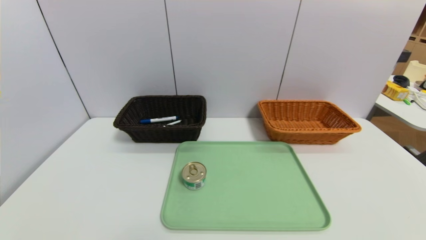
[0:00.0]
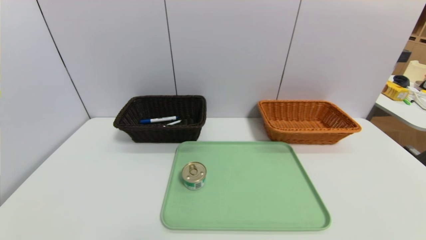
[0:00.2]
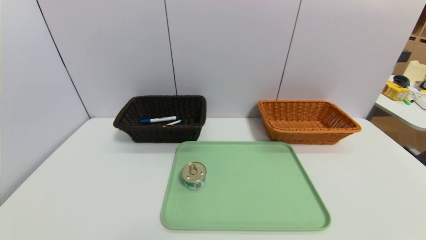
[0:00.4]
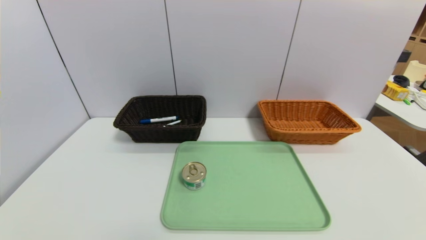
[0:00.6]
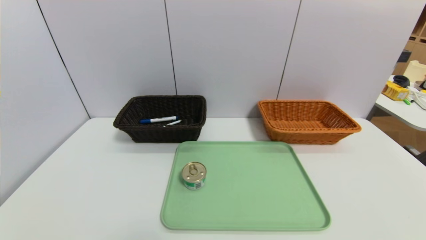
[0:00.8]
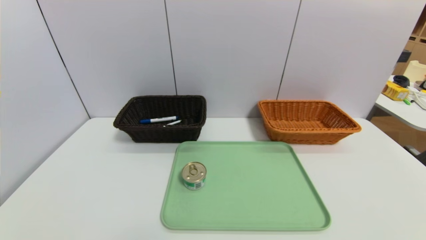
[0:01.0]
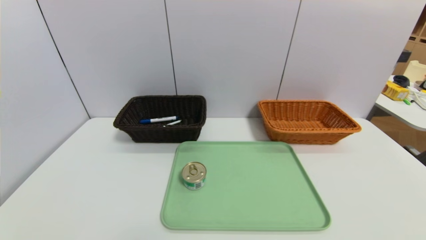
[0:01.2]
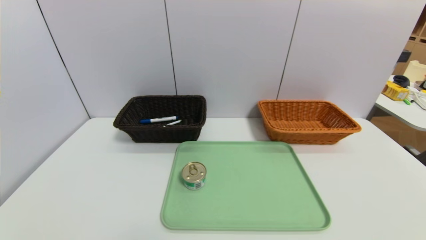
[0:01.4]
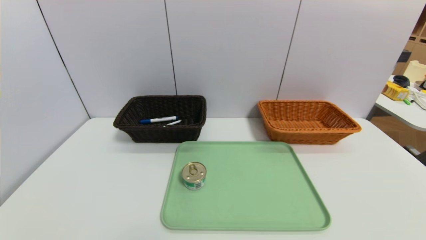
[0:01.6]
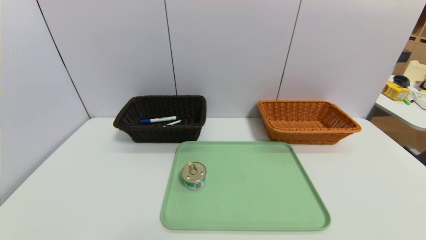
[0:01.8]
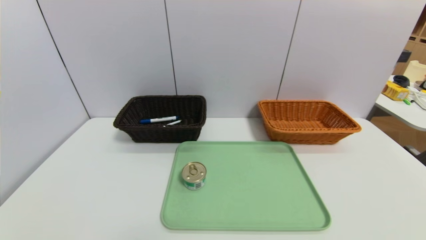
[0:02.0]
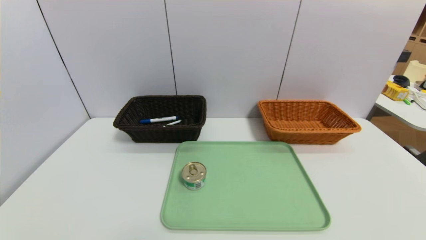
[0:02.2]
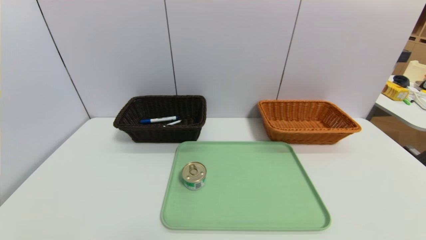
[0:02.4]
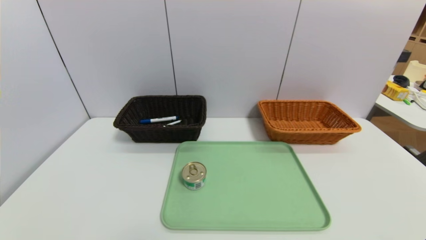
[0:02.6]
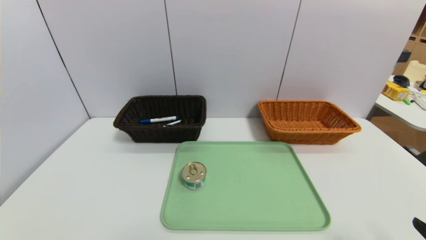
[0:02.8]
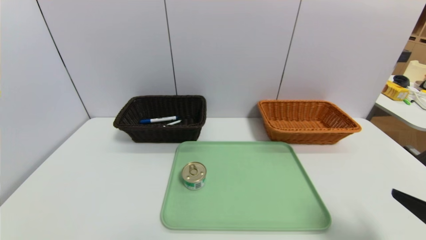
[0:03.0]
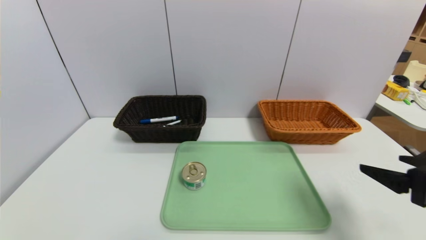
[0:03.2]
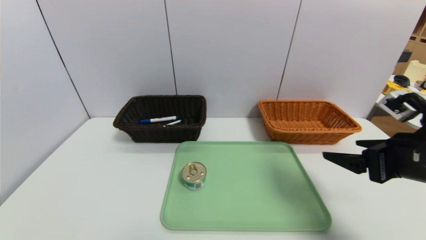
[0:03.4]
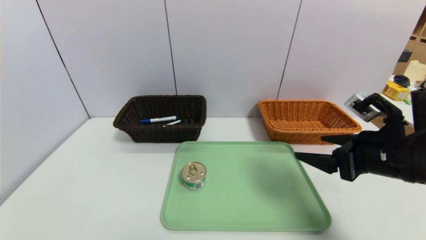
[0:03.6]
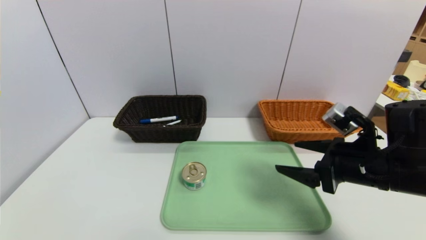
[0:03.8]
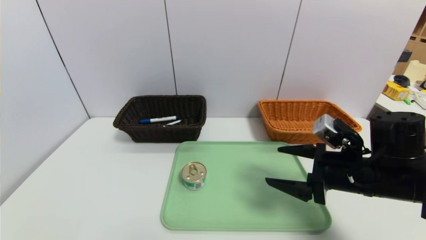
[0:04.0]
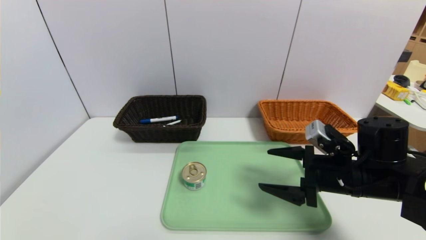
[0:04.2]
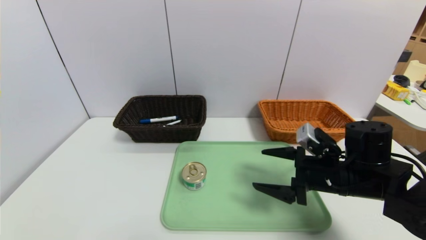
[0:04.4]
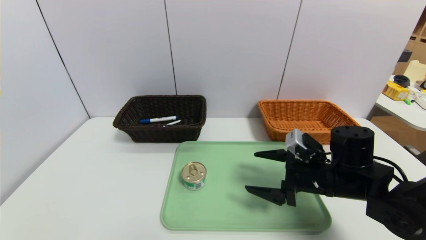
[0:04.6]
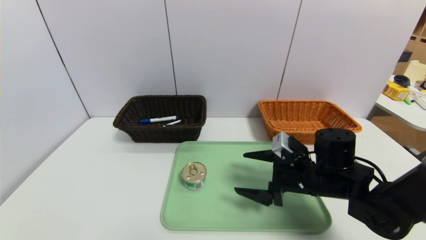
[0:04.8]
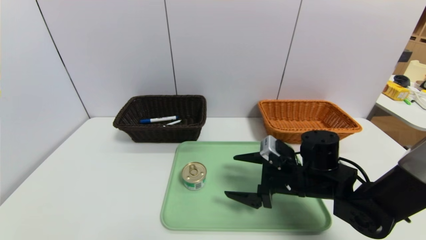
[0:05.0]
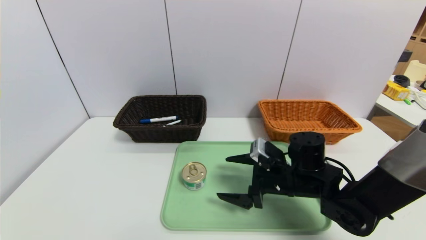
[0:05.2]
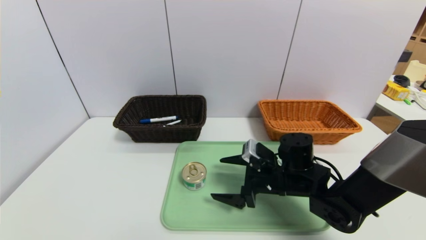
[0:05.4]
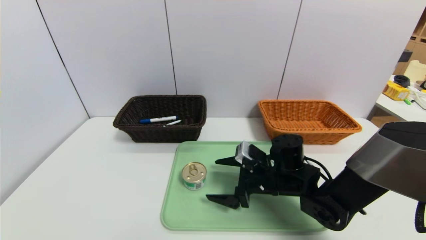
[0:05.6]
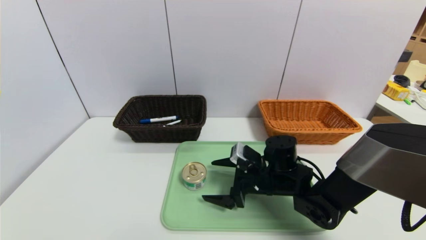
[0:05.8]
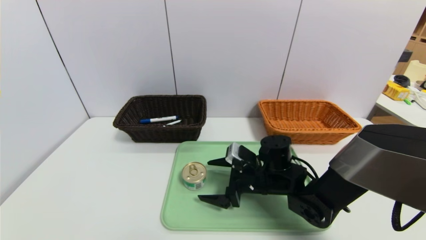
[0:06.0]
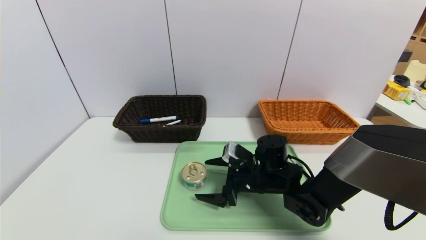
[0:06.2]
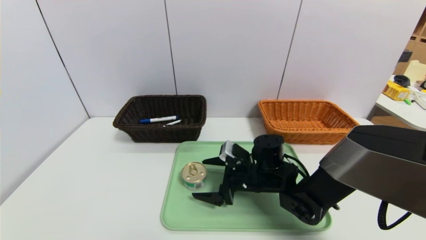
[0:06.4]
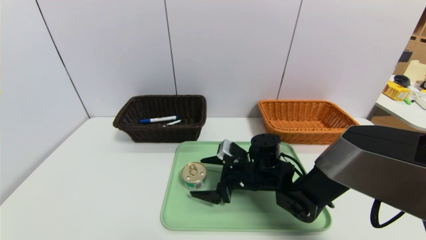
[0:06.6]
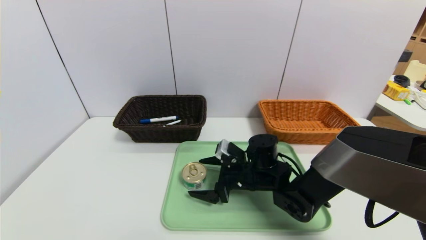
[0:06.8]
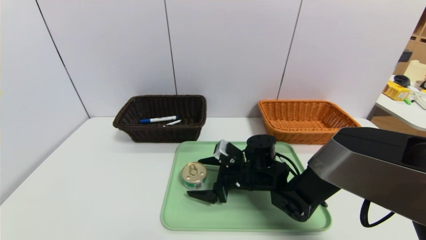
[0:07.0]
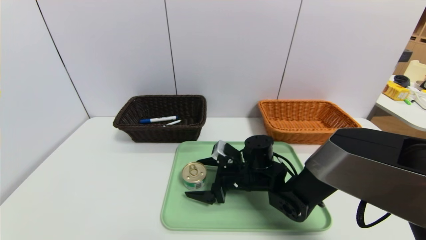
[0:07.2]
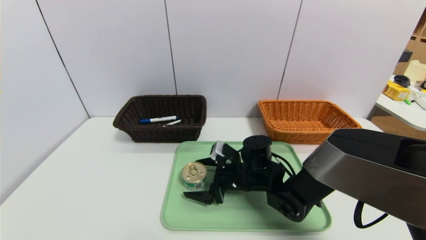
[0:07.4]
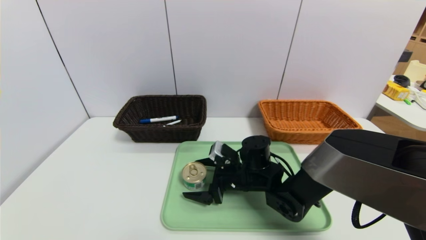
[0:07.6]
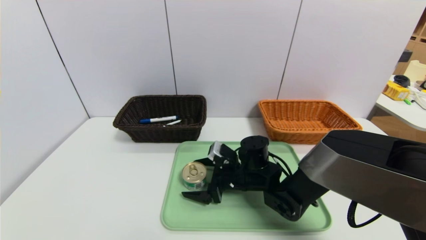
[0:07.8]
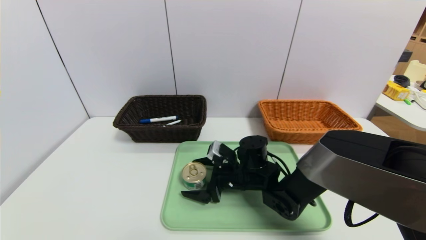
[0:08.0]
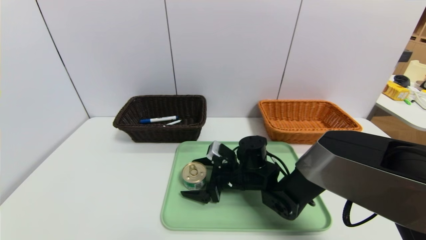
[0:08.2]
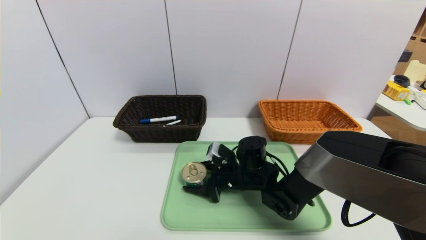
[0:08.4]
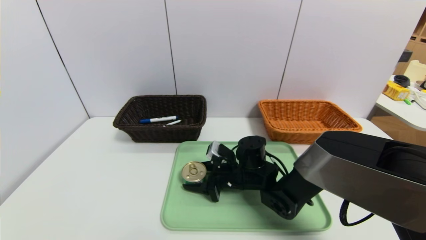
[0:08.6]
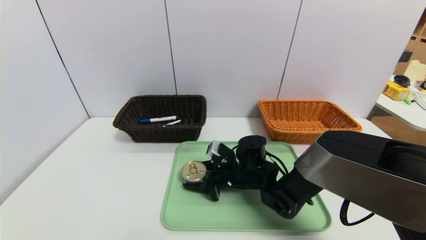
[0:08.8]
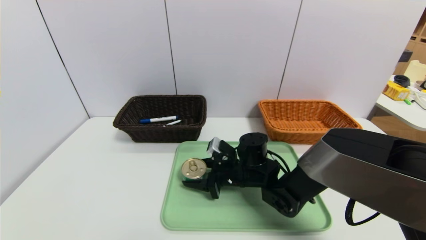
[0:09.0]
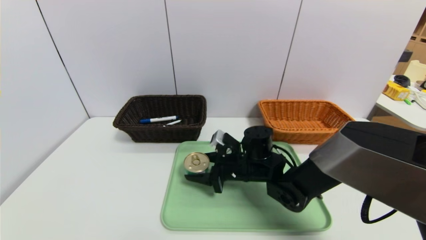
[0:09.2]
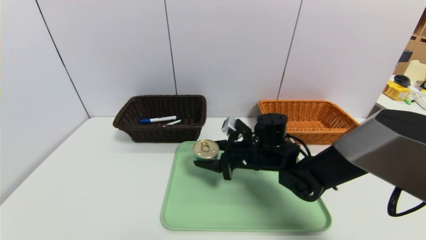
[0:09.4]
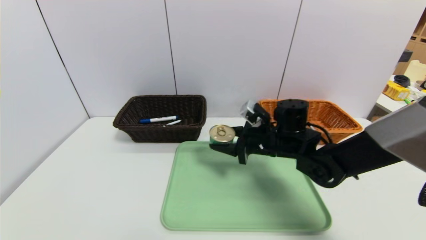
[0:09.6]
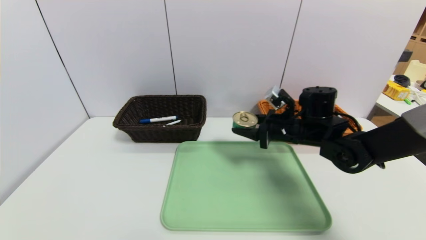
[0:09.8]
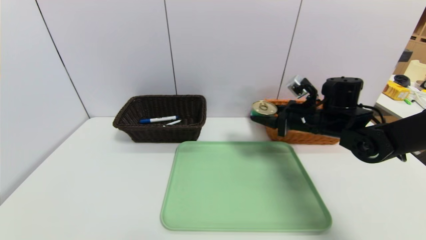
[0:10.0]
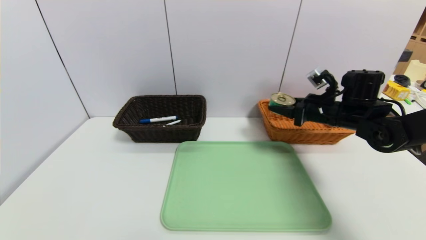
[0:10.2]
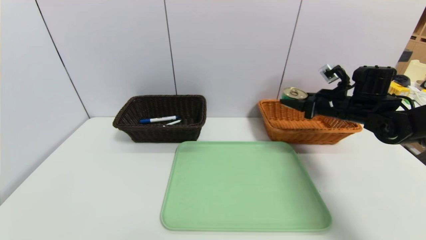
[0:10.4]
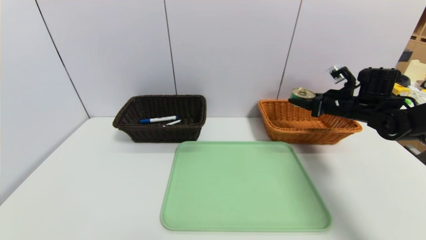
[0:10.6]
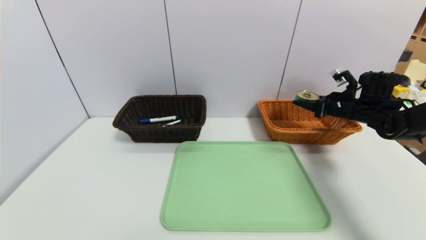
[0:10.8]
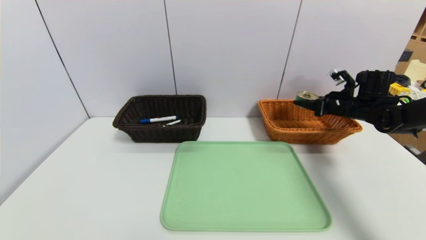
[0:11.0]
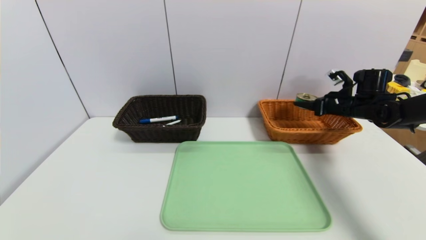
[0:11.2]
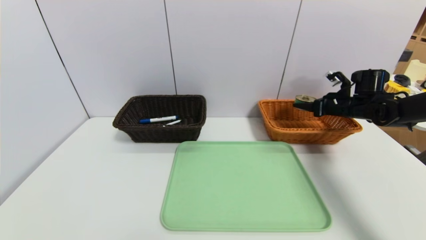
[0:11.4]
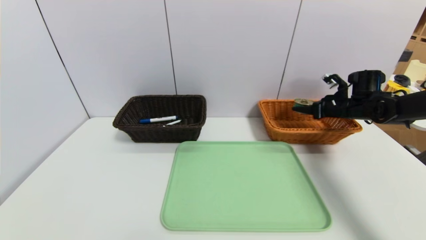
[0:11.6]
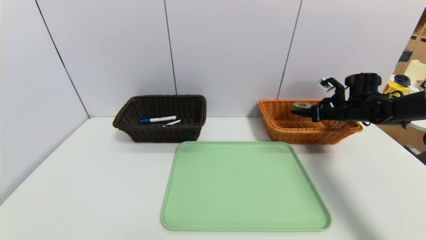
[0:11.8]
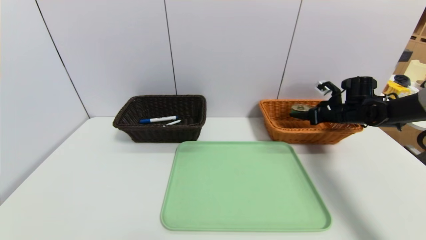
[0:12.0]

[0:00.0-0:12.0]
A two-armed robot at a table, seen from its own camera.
Task of the whole recording: place the food in the right basket with the right gripper, and place the non food items in the left basket with the left gripper.
0:01.6 to 0:03.0: The right gripper moves upward and forward, approximately 15 cm.
0:03.0 to 0:04.4: The right gripper goes approximately 20 cm forward and to the left.
0:04.4 to 0:06.0: The right gripper is displaced to the left, downward and forward by about 15 cm.
0:06.0 to 0:07.6: The grippers make only small movements.
0:07.6 to 0:09.0: The right gripper closes.
0:09.0 to 0:10.4: The right gripper shifts some 30 cm to the right and upward.
0:10.4 to 0:12.0: The right gripper moves forward, to the right and downward, roughly 10 cm.

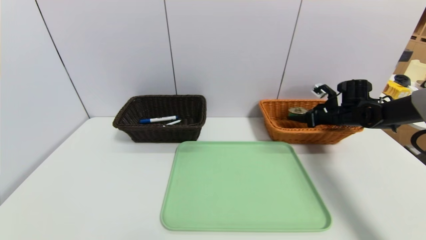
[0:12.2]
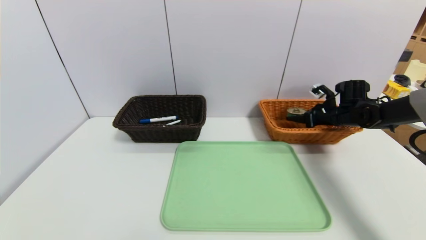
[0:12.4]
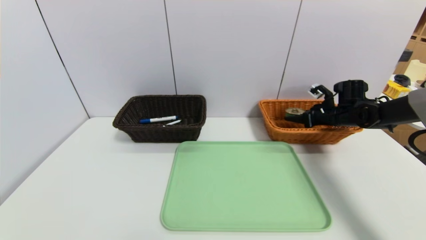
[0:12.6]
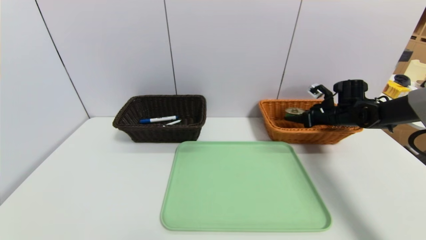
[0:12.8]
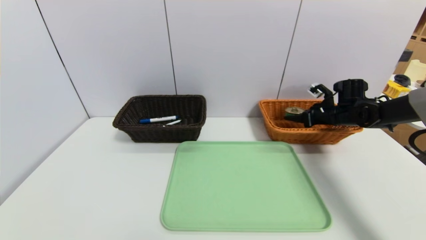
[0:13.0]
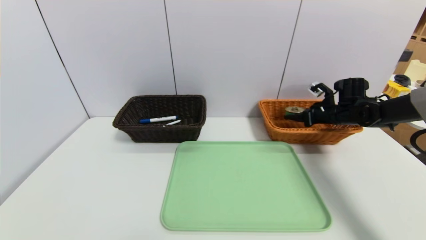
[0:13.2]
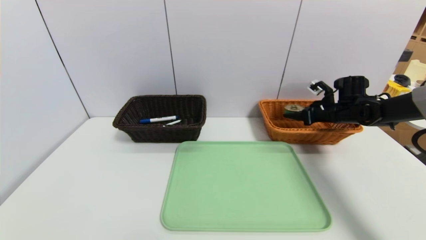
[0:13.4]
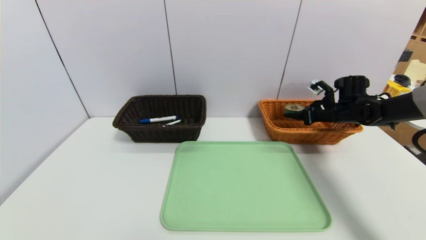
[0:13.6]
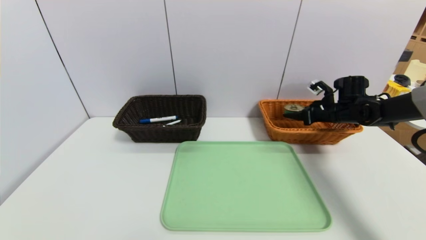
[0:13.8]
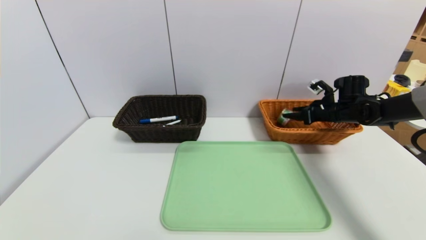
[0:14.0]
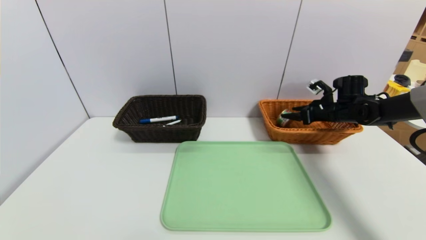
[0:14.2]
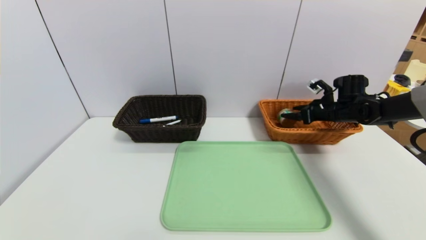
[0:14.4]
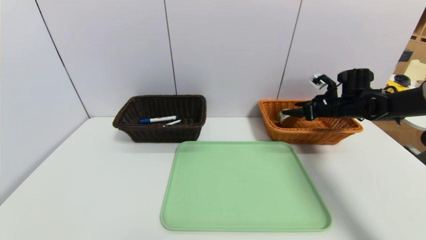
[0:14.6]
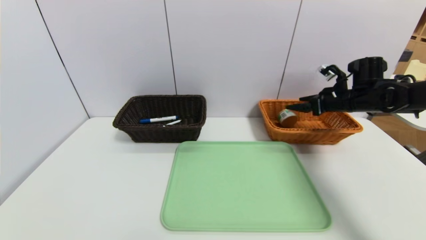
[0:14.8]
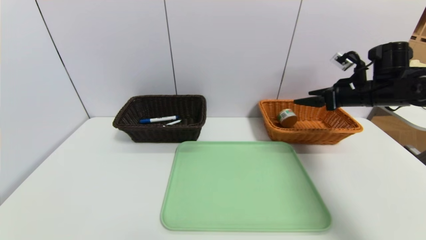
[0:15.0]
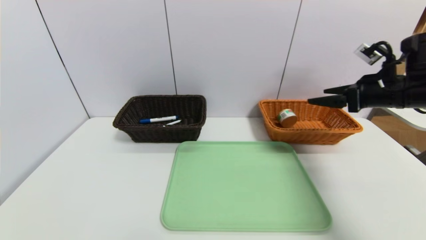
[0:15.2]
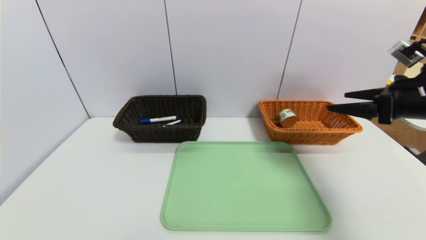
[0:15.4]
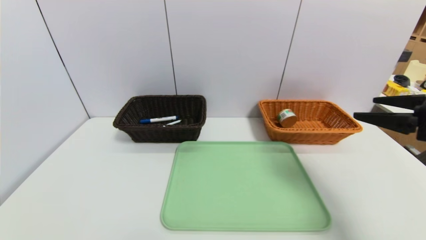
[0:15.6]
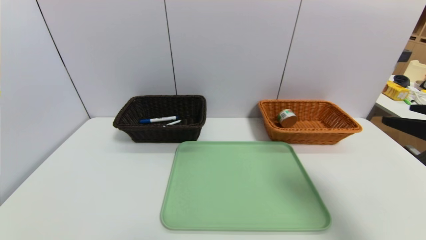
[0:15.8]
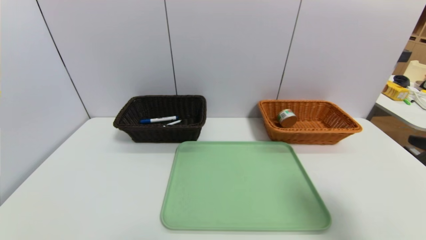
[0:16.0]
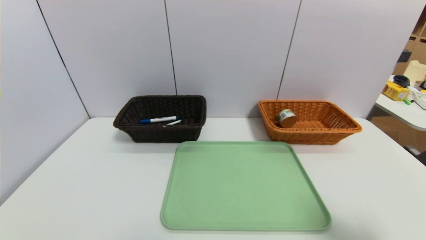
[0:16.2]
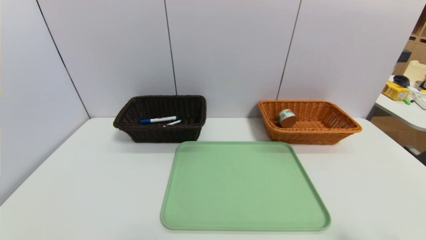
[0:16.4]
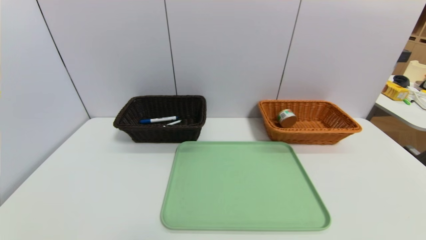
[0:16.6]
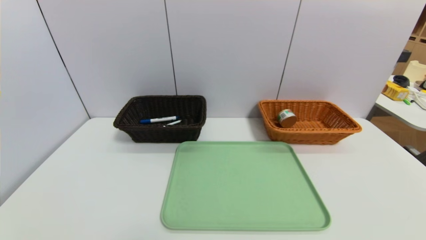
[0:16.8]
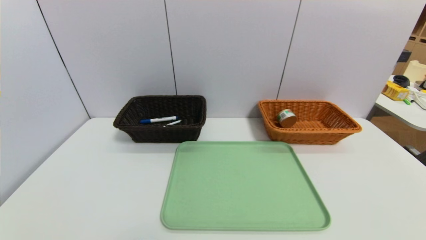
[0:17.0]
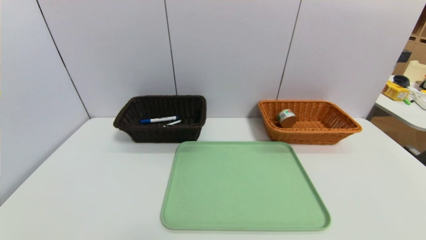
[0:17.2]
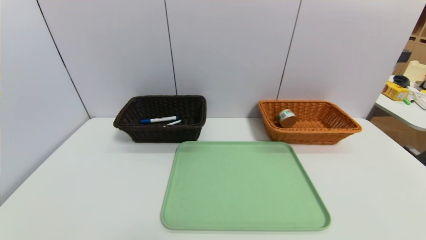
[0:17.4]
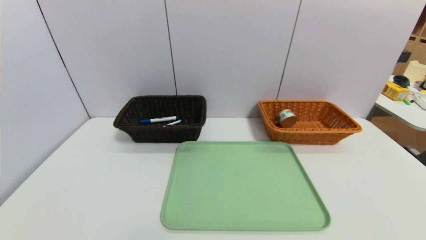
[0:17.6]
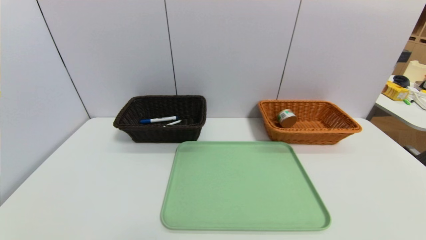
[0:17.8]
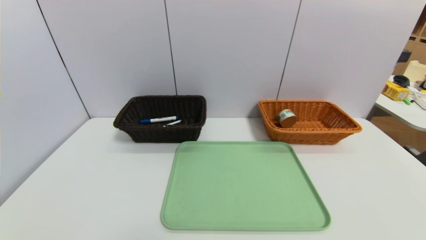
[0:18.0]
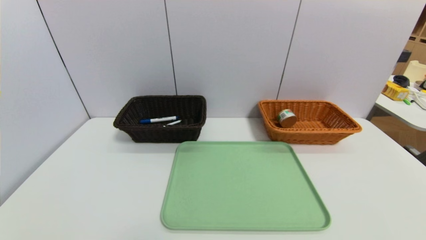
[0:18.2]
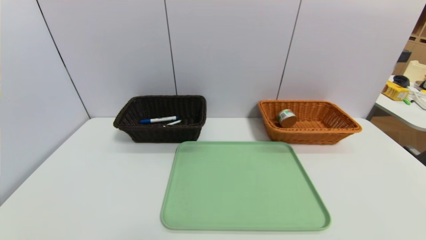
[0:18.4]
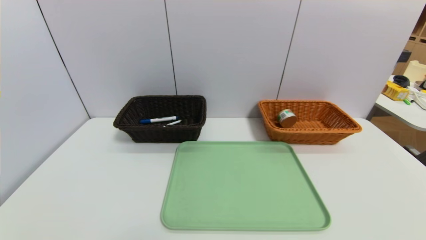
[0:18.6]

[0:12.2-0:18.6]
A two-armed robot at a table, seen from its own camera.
Task of the whole recording: place the food in the right basket with the right gripper, and place the non food items in the left basket with the left gripper.
Step, 0:12.2 to 0:14.4: Grasp the can and put it in the right basket.
0:12.2 to 0:13.8: The grippers stay close to where they were, moving slightly.
0:13.8 to 0:15.4: The right gripper travels backward and upward by roughly 25 cm, and opens up.
0:15.4 to 0:17.0: The right gripper shifts about 35 cm backward and downward.
